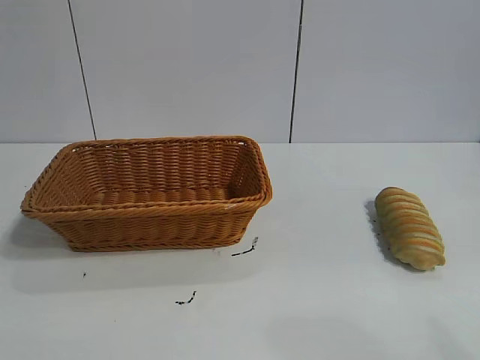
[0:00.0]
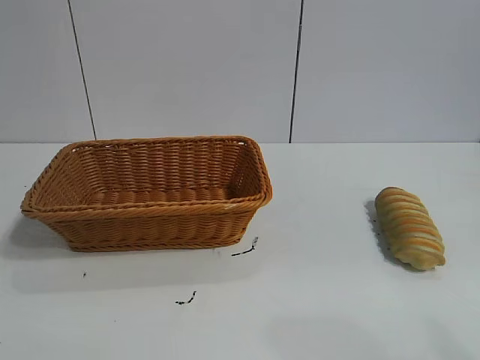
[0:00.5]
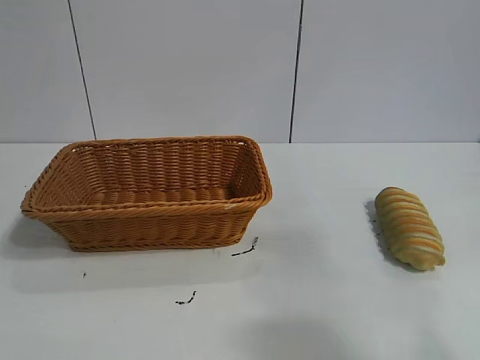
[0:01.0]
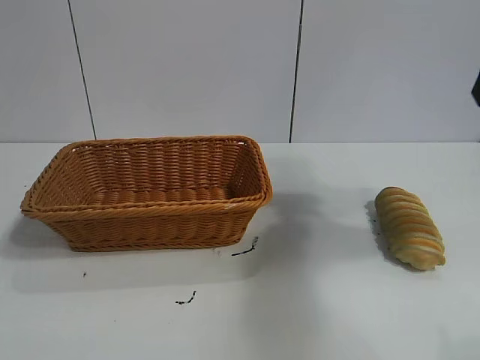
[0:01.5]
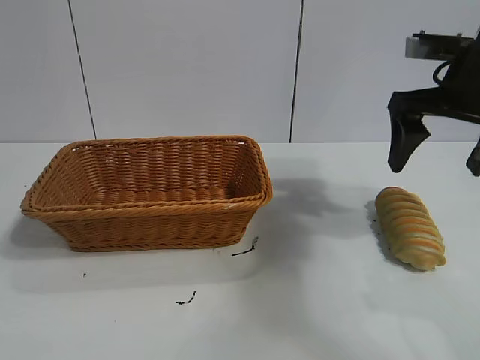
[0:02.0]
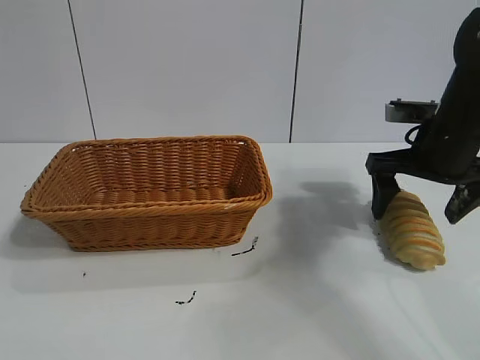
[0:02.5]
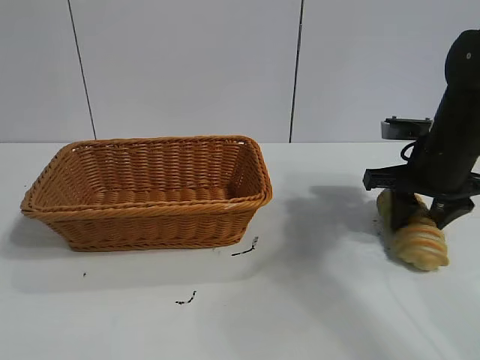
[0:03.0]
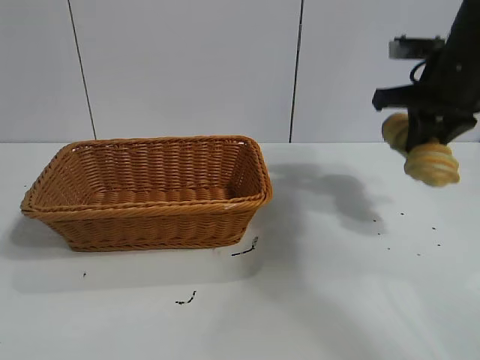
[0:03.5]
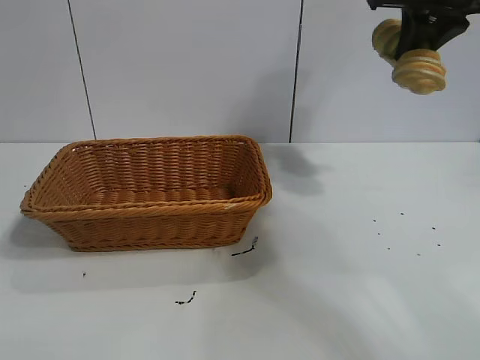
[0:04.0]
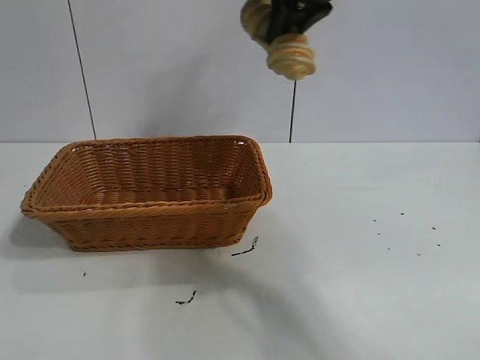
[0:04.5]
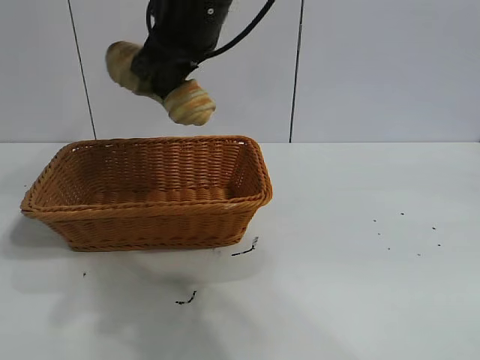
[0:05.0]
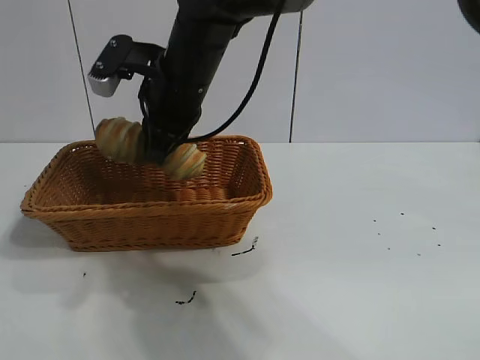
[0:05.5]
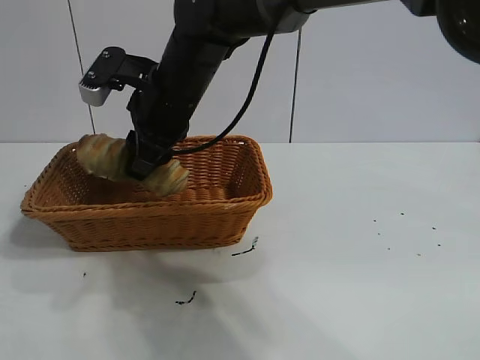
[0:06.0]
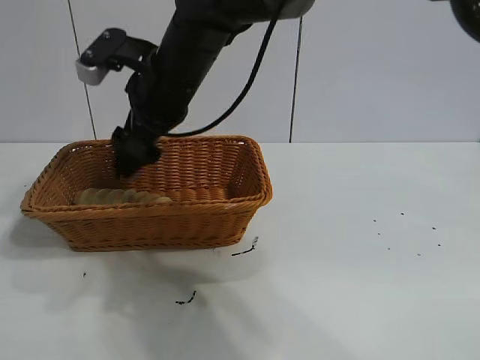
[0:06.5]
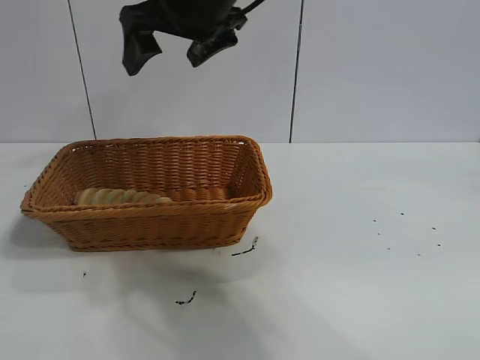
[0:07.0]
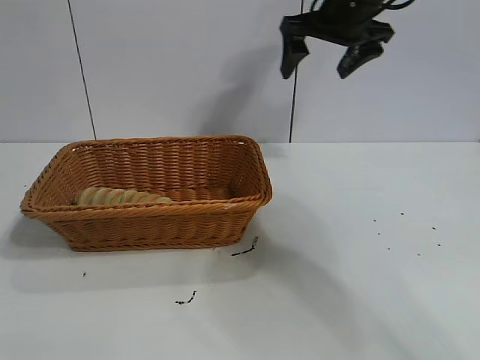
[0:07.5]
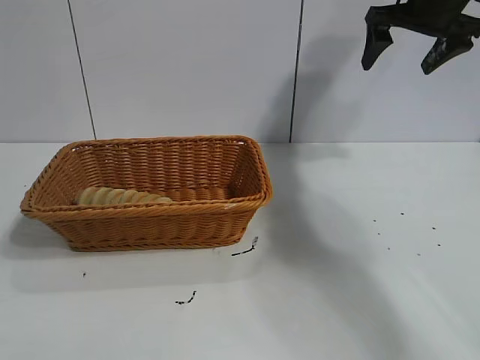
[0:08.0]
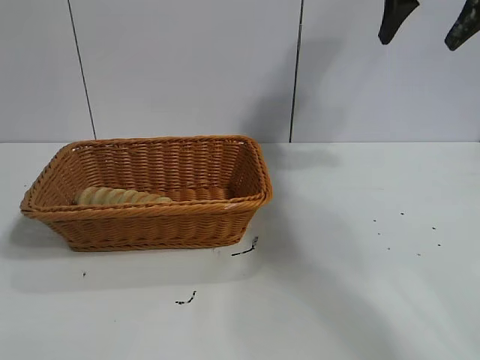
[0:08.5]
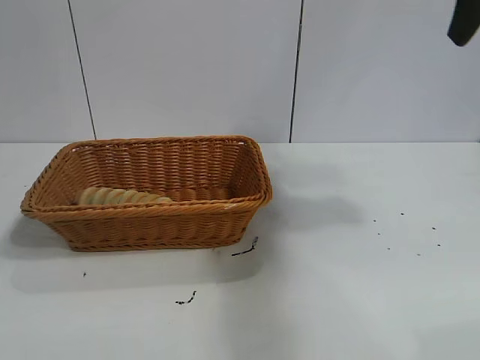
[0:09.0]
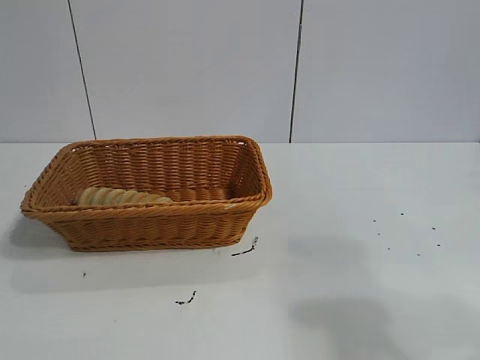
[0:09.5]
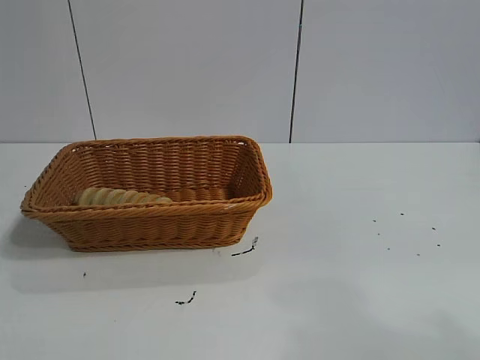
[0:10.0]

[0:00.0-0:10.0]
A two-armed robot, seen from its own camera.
Task of the whole recording: pick up the long bread and put it into the basket.
Step, 0:02.0 to 0:03.0: Grasp the long bread with right gripper.
Step, 0:03.5 to 0:06.5: Place the long bread in the basket with right gripper.
